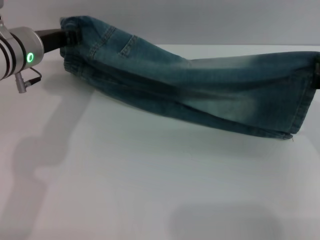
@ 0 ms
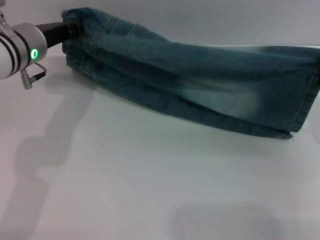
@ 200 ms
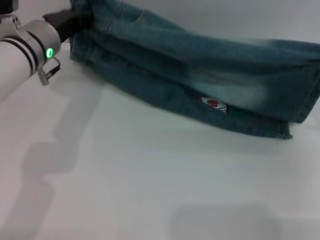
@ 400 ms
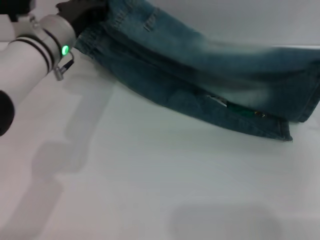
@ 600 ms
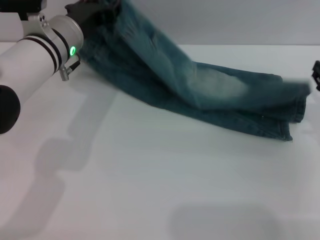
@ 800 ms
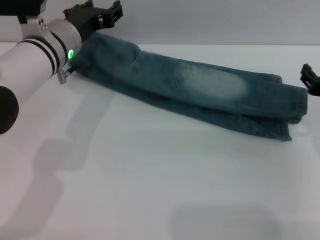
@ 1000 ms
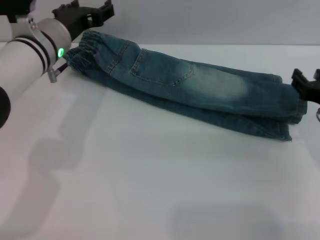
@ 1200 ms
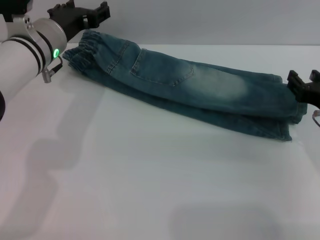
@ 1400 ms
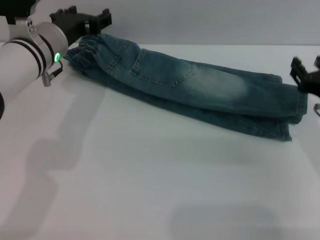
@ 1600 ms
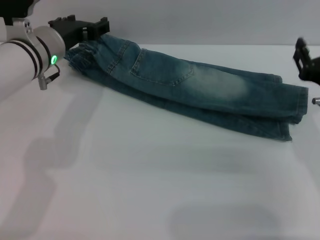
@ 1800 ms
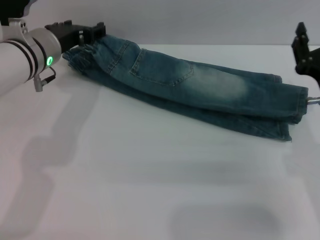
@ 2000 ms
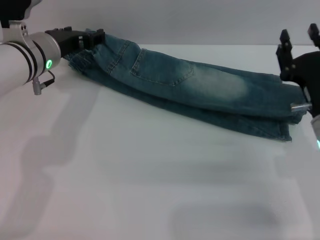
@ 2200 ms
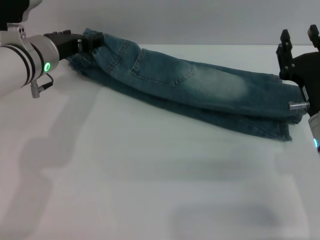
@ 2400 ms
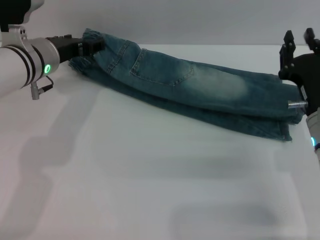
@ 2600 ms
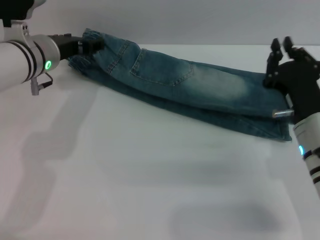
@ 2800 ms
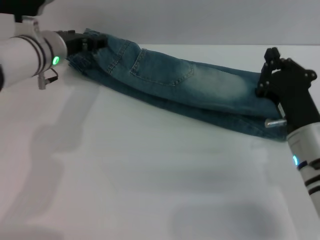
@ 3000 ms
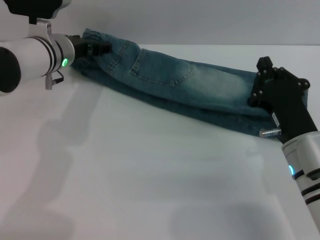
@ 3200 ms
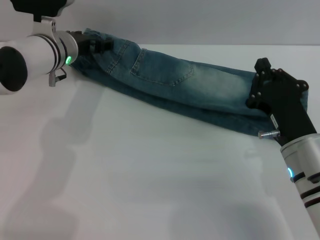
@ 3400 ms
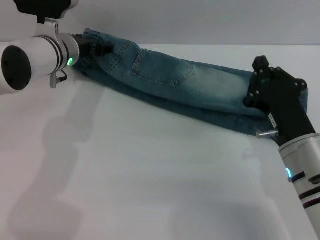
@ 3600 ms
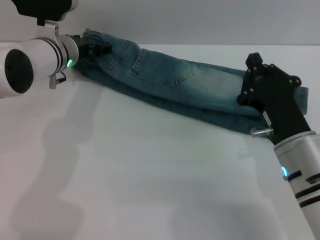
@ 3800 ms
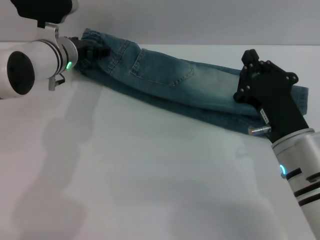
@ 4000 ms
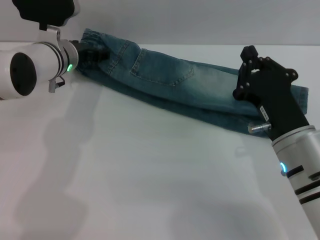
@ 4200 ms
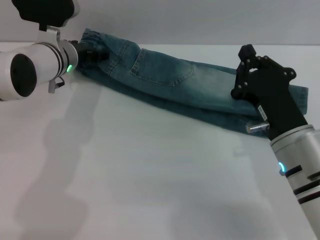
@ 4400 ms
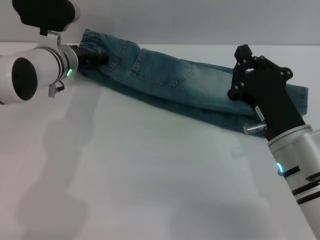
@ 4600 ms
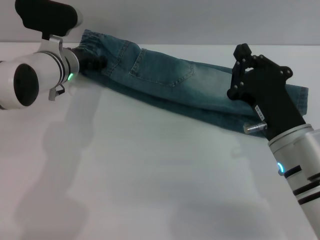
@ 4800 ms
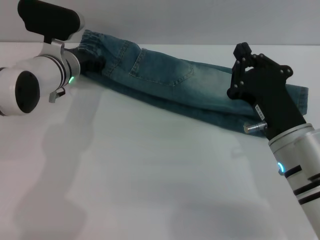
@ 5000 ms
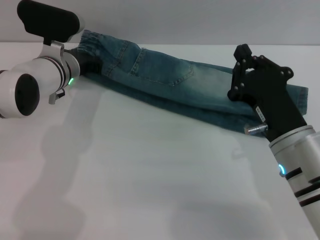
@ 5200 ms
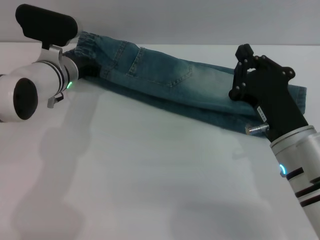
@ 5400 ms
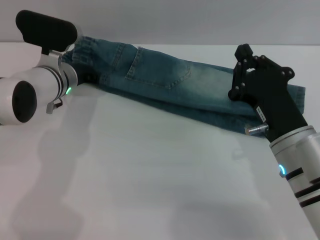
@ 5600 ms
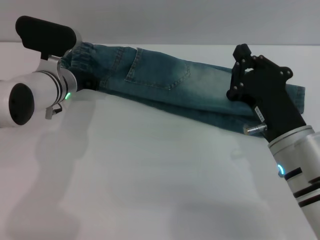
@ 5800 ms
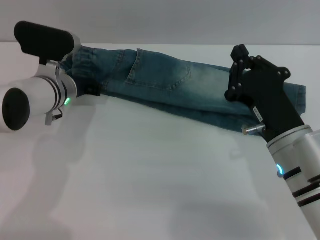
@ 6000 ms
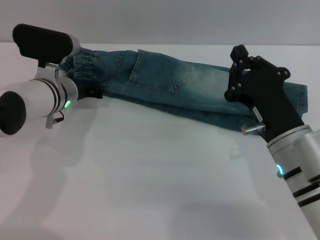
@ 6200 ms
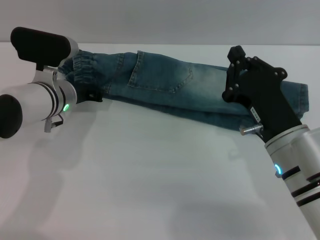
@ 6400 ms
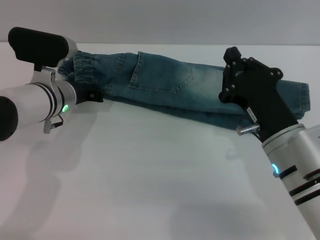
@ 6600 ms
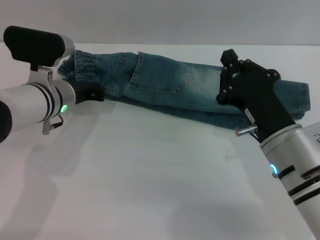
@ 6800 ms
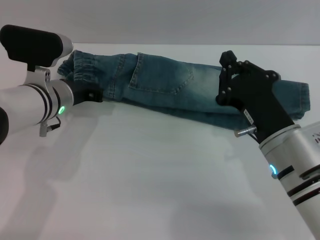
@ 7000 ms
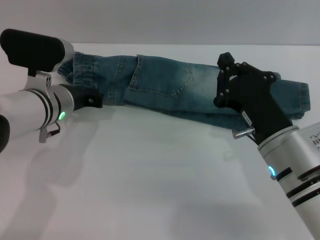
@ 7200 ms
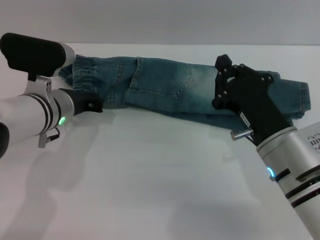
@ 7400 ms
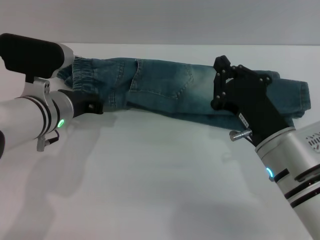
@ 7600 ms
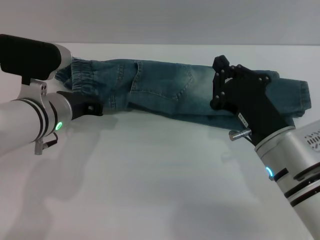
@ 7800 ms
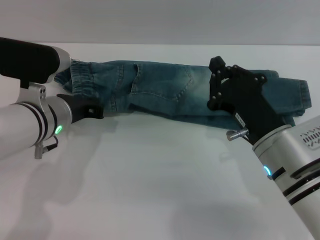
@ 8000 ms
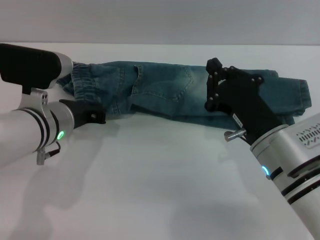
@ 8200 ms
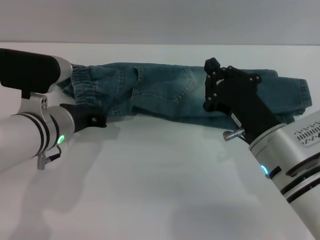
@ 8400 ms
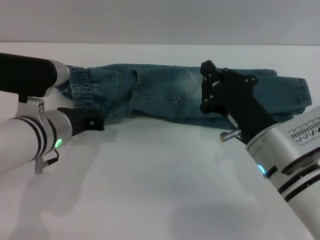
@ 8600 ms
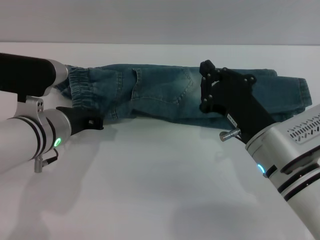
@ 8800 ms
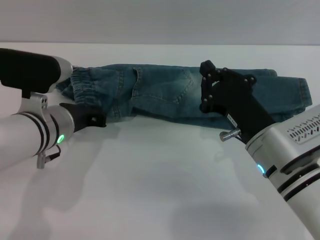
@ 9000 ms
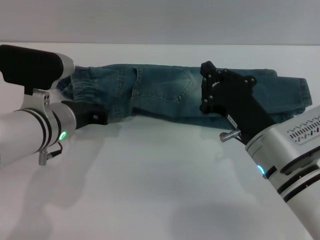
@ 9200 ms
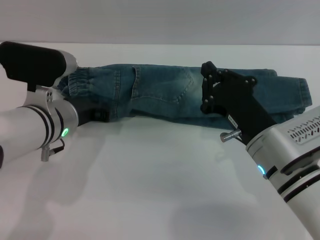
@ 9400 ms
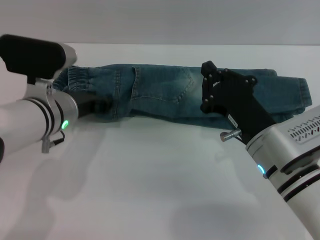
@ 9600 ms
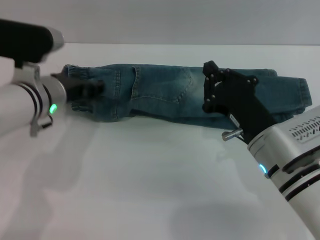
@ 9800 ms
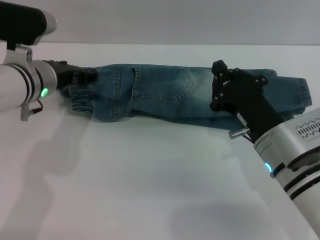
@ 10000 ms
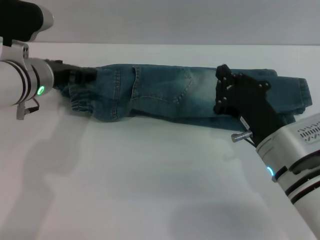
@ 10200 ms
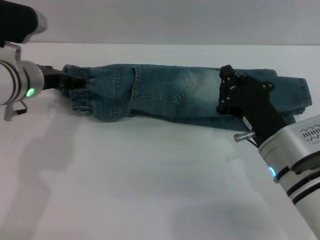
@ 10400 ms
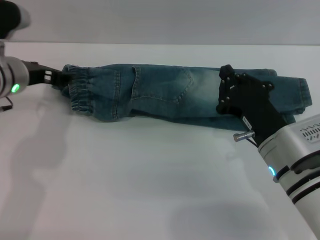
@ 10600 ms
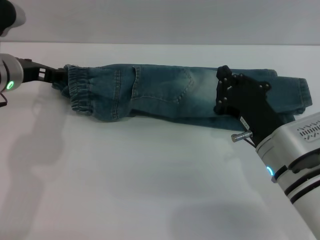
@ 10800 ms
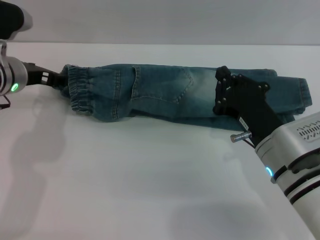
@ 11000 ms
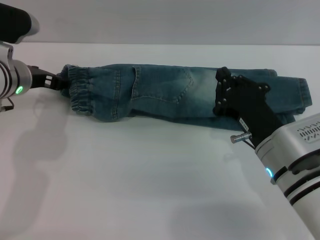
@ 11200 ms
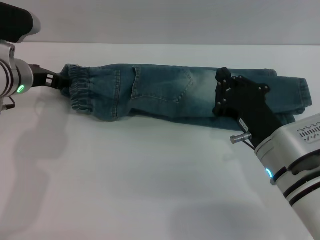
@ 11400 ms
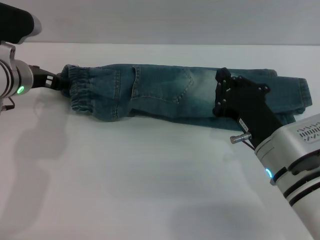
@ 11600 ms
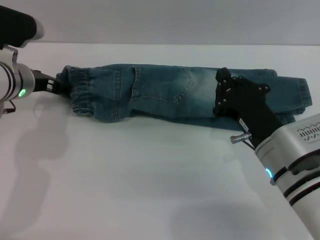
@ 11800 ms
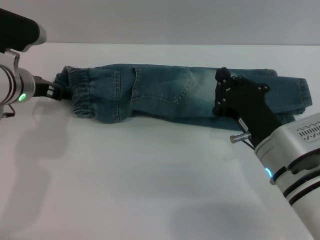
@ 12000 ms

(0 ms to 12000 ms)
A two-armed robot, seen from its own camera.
0 ms - 1600 ms: The left gripper opens up. Meanwhile the right gripper opens.
1600 ms - 3000 ms: The right gripper goes about 5 cm to the left, and closes its fingers.
3000 ms - 4400 ms: The grippers move only a little.
4400 ms - 6000 ms: The left gripper ends up about 5 cm from where it was, and closes its fingers.
6000 ms - 7600 ms: The left gripper moves backward, approximately 5 cm.
7600 ms - 9000 ms: There are only small adjustments of the grippers.
9000 ms - 10400 ms: The left gripper moves forward, roughly 5 cm, and opens its fingers.
10400 ms - 12000 ms: The grippers move only a little.

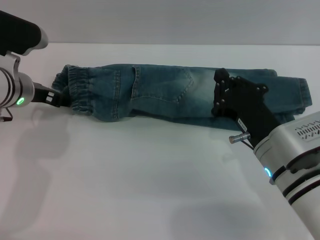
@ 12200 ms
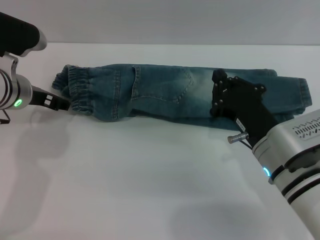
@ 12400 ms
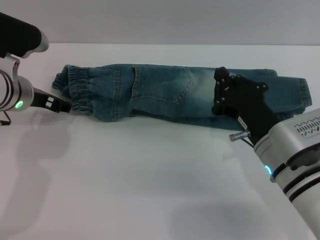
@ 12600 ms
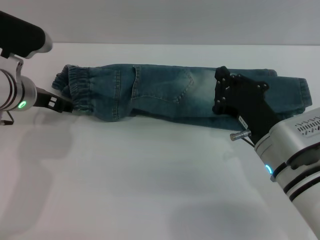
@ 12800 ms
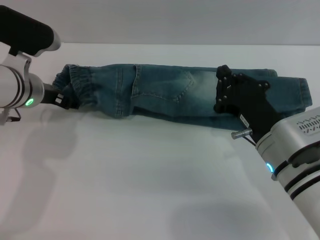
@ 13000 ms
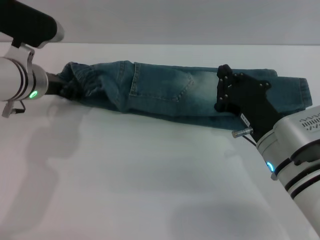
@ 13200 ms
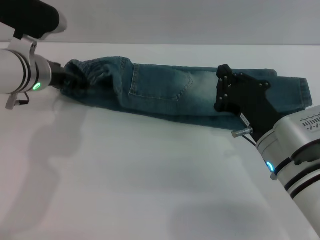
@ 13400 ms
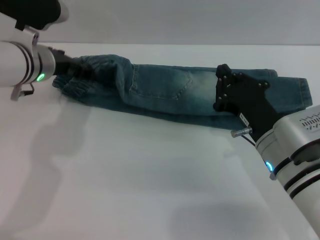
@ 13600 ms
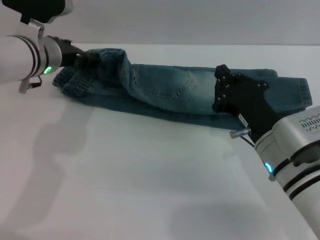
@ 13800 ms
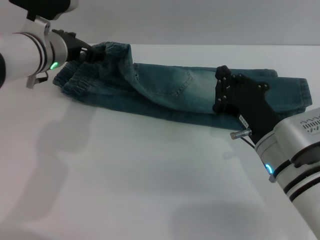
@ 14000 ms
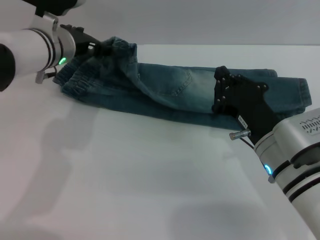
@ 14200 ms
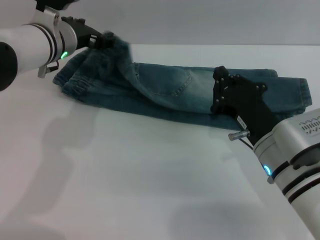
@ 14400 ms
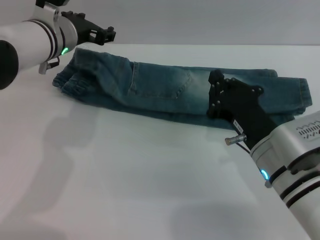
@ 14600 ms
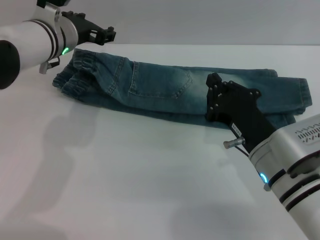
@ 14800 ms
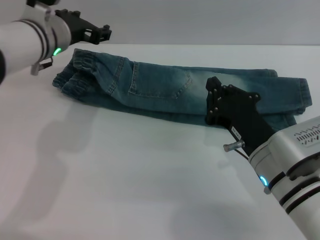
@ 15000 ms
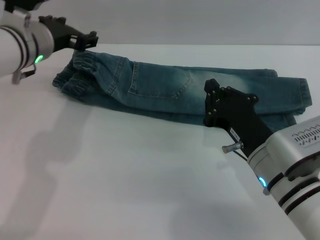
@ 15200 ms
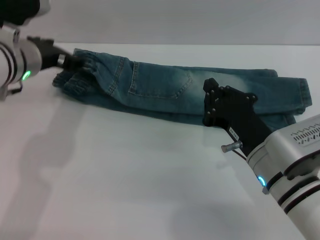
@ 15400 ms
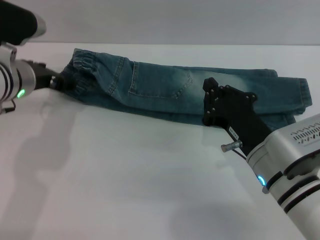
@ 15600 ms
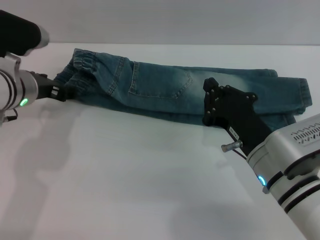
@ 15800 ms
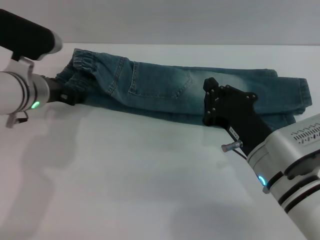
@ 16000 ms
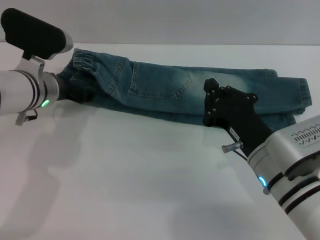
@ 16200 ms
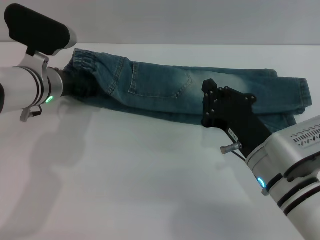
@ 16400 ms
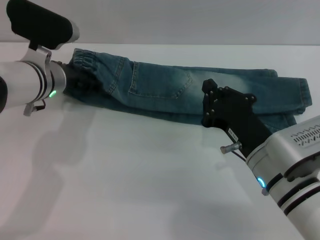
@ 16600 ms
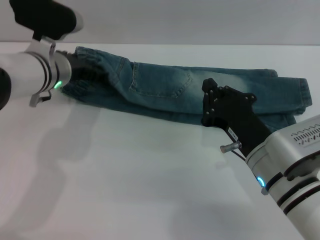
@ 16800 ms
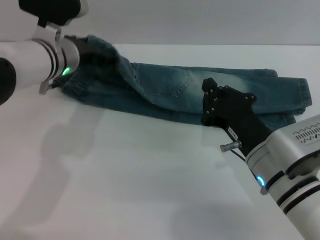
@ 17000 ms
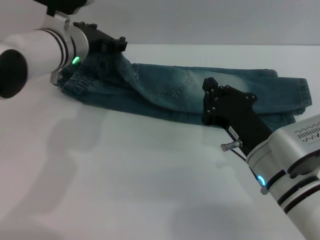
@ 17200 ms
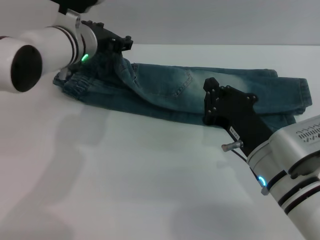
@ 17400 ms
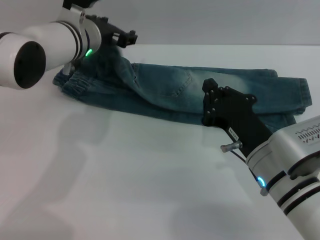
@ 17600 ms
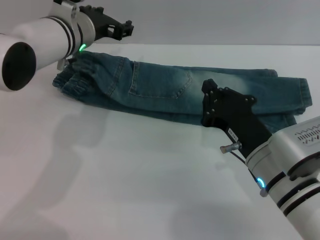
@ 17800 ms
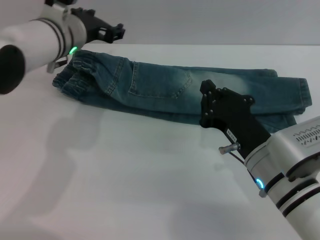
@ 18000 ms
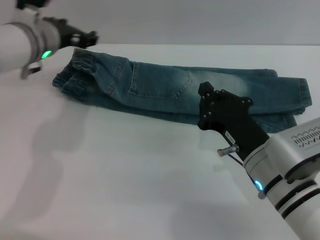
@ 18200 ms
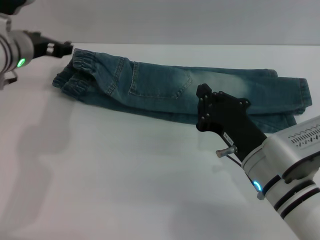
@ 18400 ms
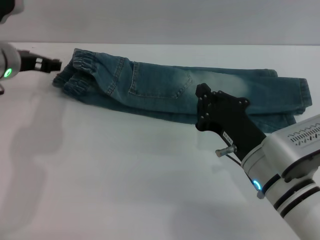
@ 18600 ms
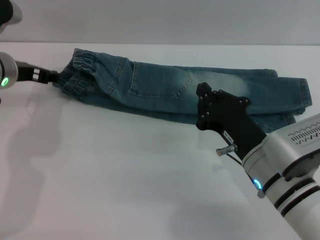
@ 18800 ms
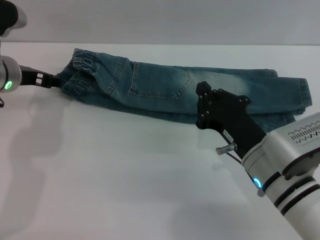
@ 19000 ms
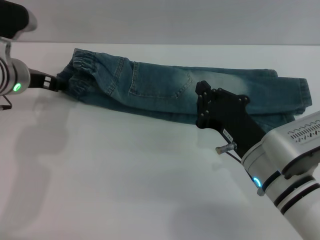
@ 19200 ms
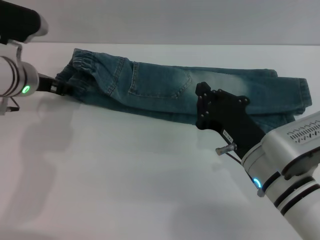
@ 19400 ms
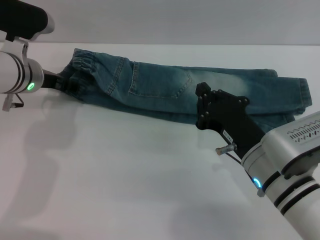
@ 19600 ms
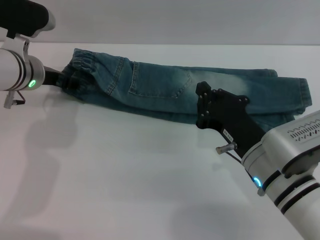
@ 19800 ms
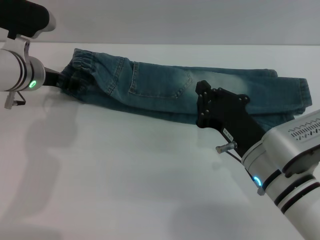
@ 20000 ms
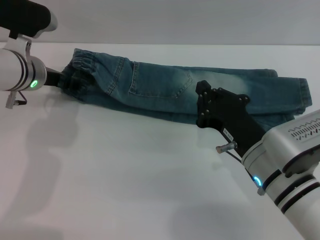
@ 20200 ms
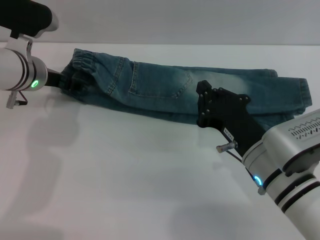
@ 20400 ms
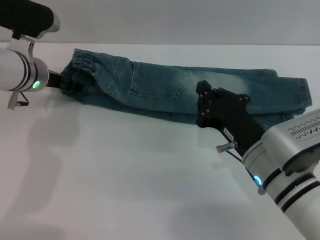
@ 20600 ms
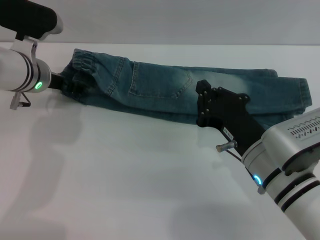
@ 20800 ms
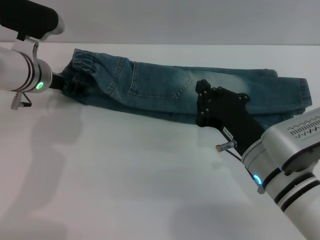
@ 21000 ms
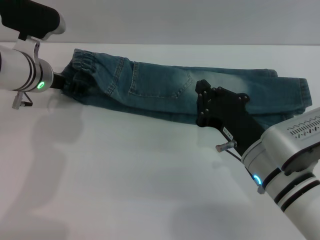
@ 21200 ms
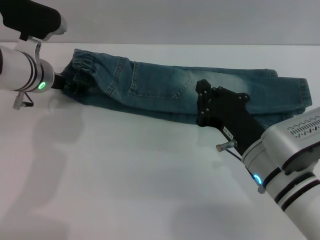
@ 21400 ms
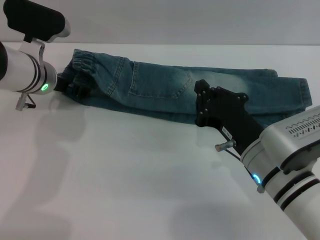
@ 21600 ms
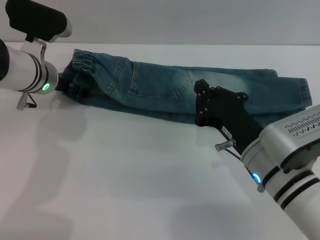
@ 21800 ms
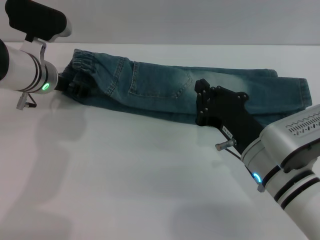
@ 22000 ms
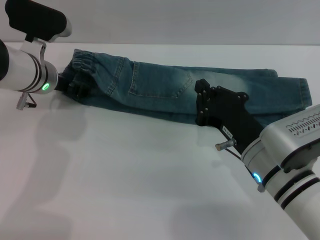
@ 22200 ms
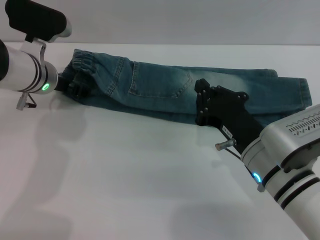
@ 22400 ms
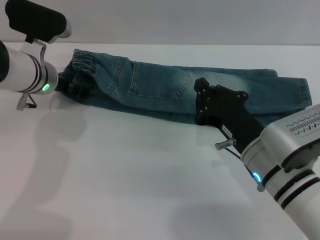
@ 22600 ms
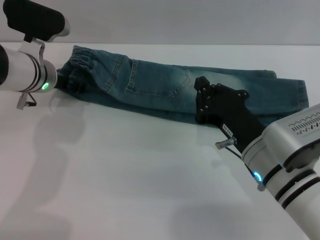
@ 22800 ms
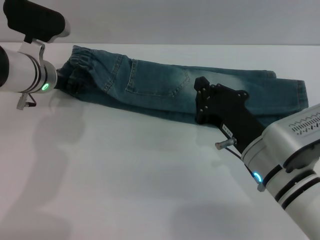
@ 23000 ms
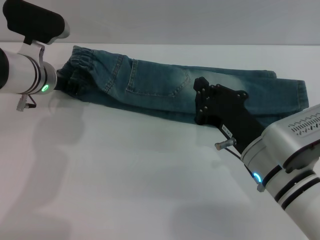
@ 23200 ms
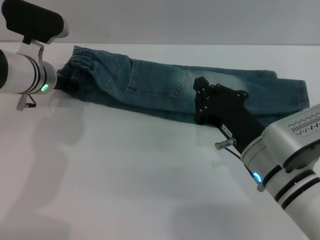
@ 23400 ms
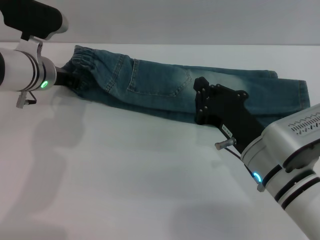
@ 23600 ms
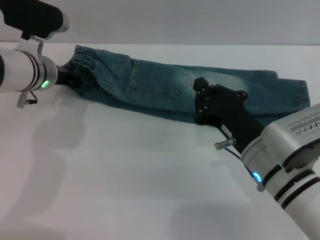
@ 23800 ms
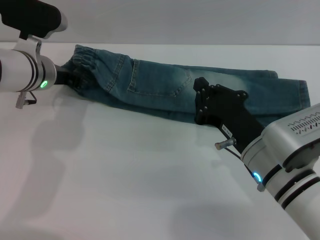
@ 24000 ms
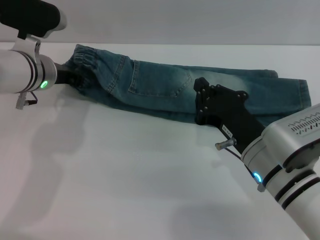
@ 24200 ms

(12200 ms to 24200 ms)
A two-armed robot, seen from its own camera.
12200 ms - 13800 ms: The left gripper ends up about 5 cm from where it was.
13800 ms - 15200 ms: The grippers stay close to where they were, moving slightly.
15200 ms - 16600 ms: The left gripper goes roughly 5 cm downward.
16600 ms - 18200 ms: The left gripper ends up about 5 cm from where it was.
18200 ms - 19800 ms: The left gripper shifts by about 5 cm.
19800 ms - 21200 ms: The two grippers keep their place.
21200 ms - 22600 ms: Neither gripper changes place.
22600 ms - 24200 ms: The left gripper closes its fingers.
